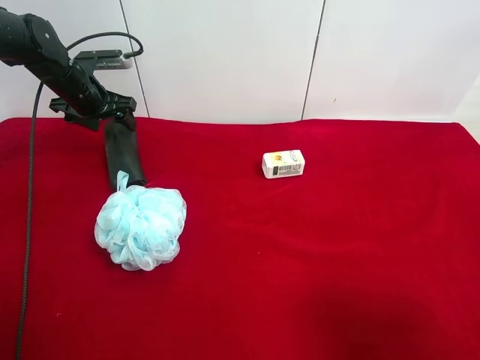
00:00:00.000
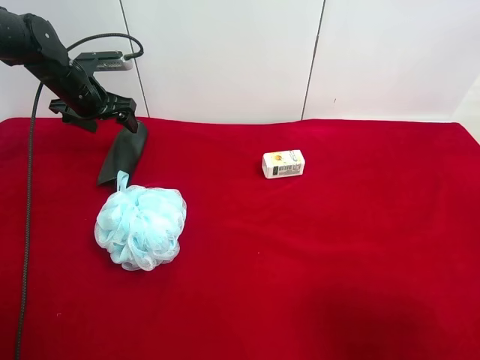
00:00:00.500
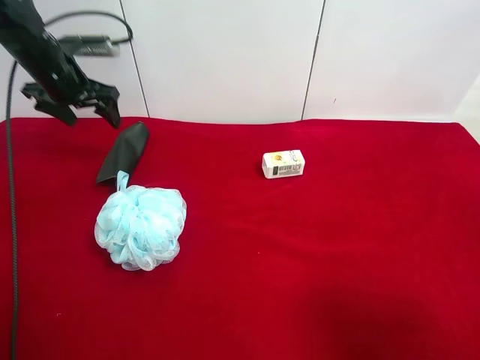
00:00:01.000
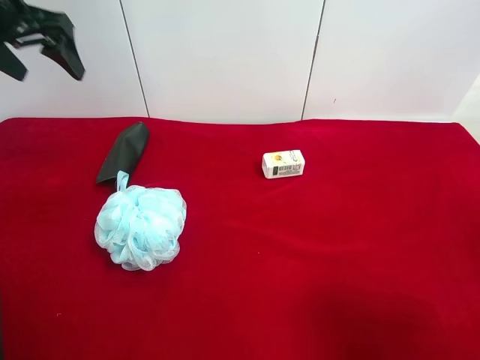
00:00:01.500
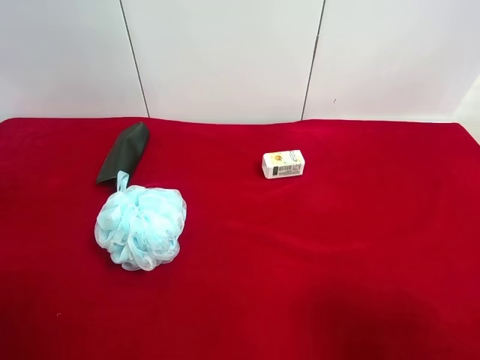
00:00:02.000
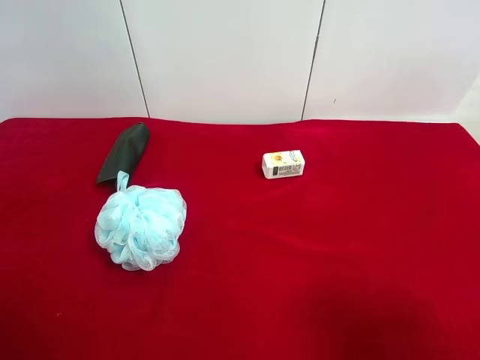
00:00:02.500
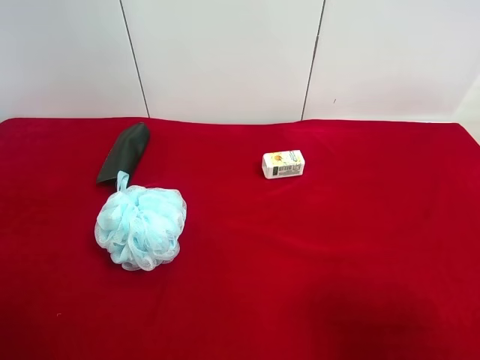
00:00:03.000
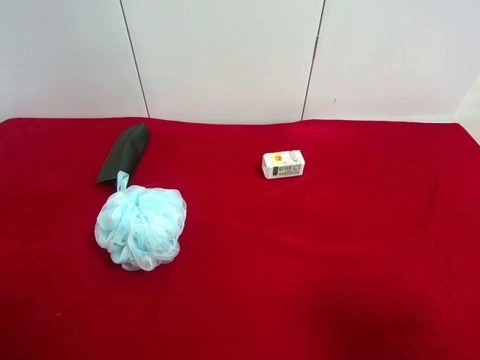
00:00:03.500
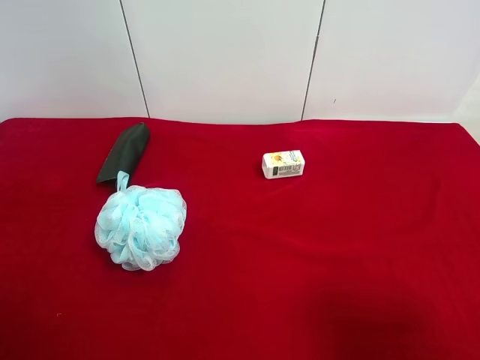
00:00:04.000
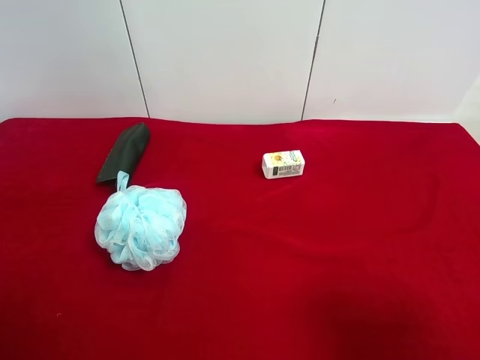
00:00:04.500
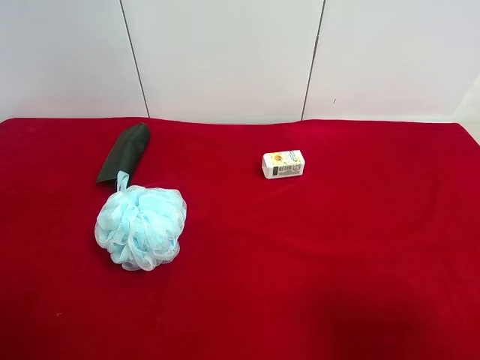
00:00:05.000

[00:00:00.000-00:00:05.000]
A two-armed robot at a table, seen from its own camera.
Task of the whole recording: use the right gripper to pick up the item and transfer it from the right gripper to the left gripper.
00:00:00.000 to 00:00:02.500: The left gripper travels backward and upward by approximately 40 cm.

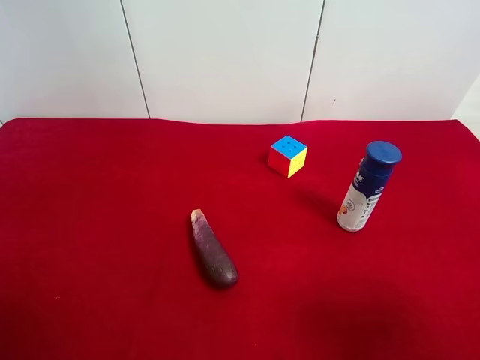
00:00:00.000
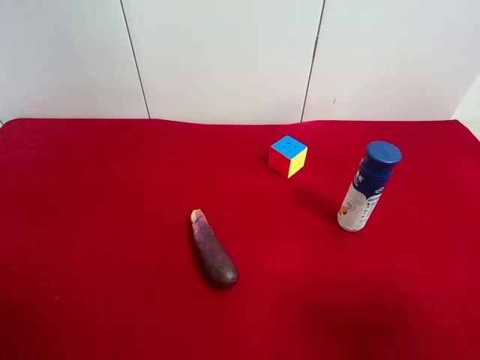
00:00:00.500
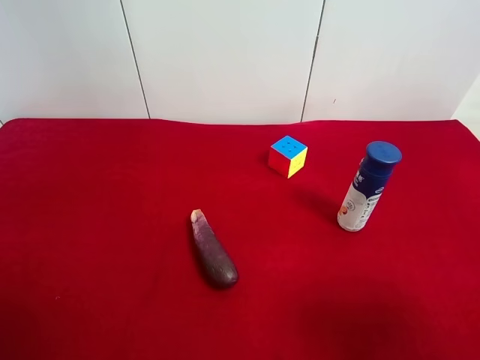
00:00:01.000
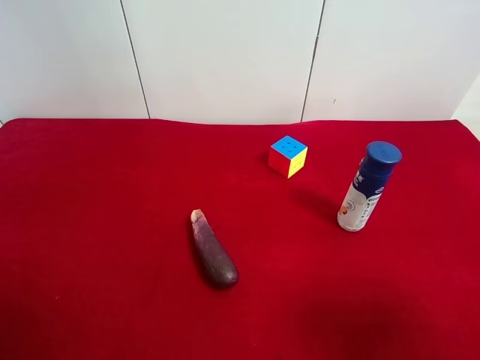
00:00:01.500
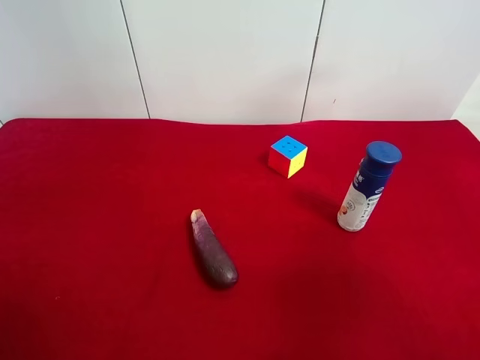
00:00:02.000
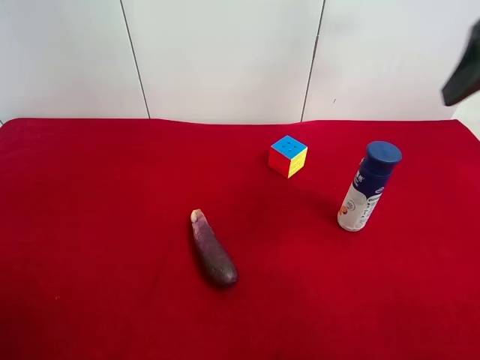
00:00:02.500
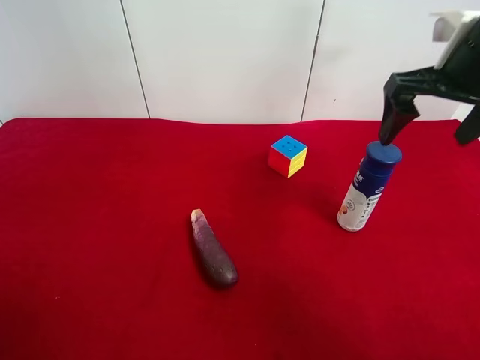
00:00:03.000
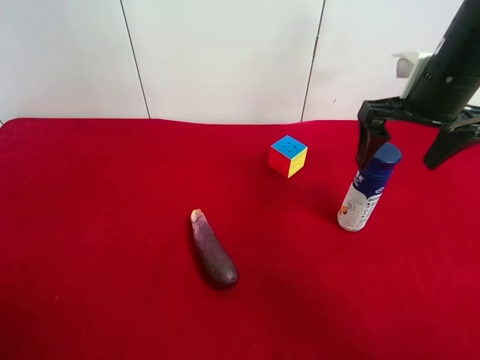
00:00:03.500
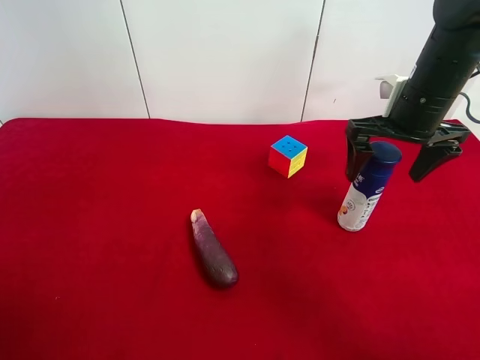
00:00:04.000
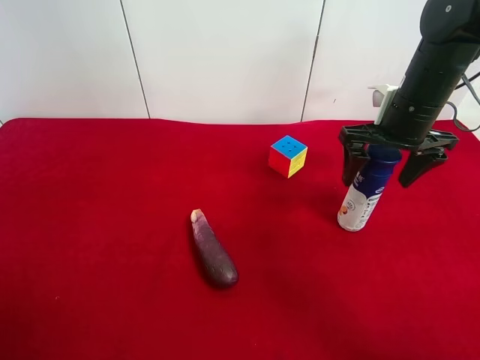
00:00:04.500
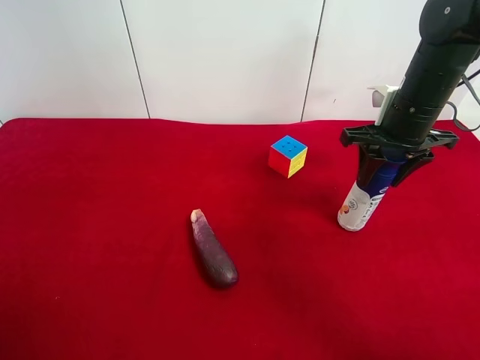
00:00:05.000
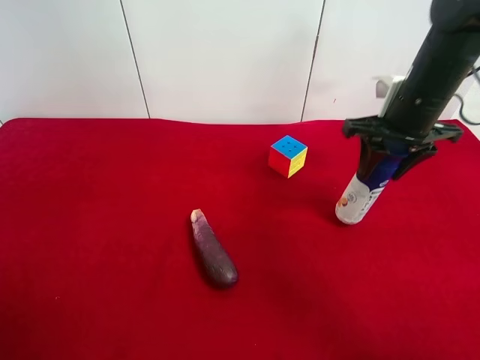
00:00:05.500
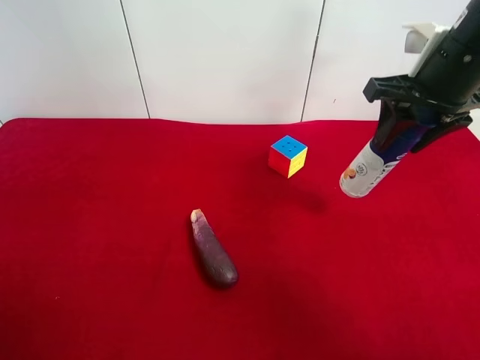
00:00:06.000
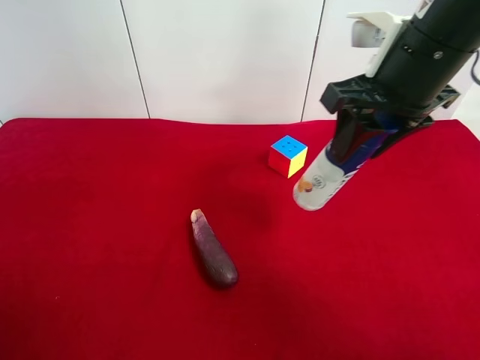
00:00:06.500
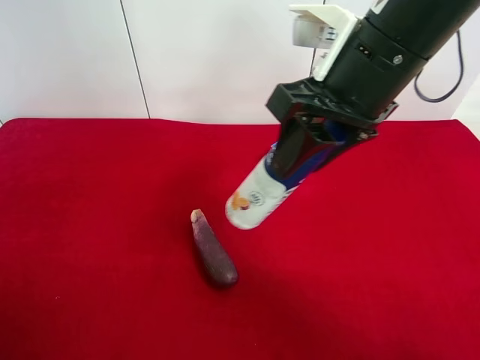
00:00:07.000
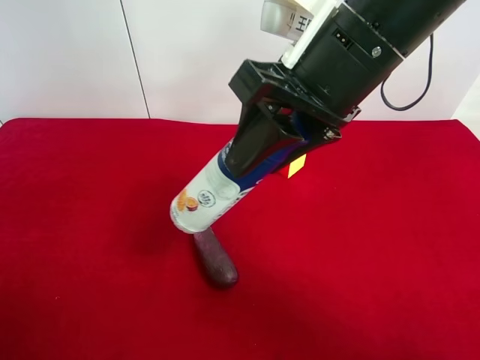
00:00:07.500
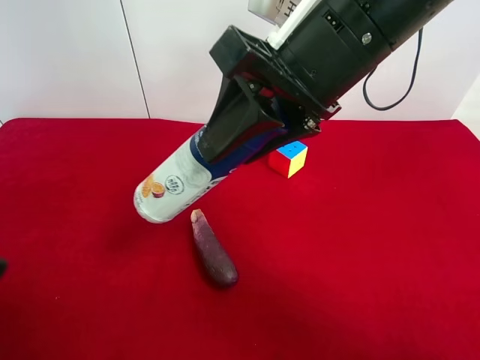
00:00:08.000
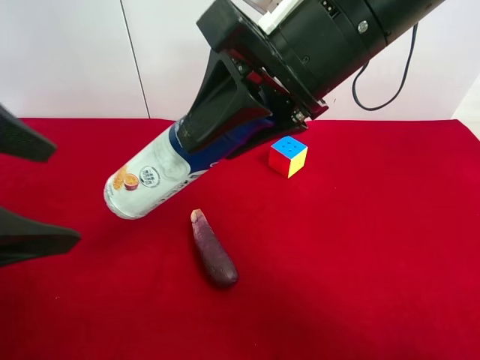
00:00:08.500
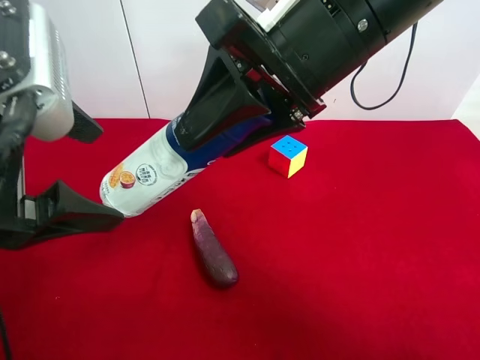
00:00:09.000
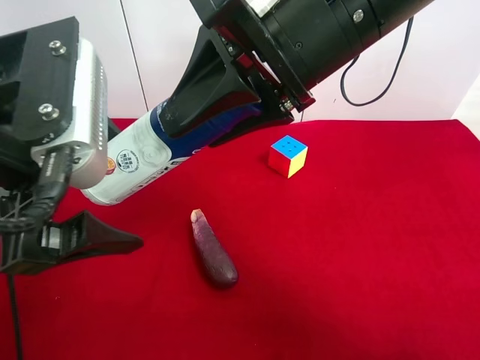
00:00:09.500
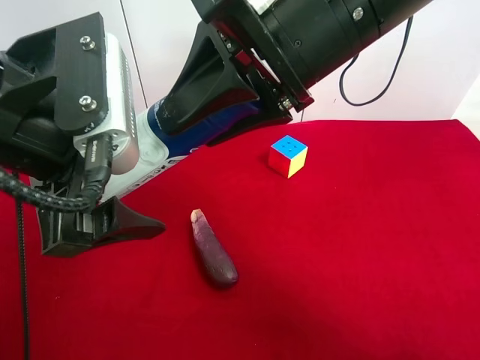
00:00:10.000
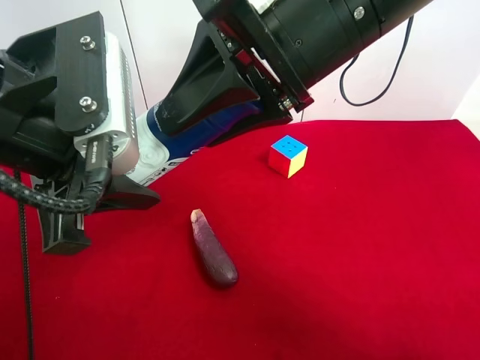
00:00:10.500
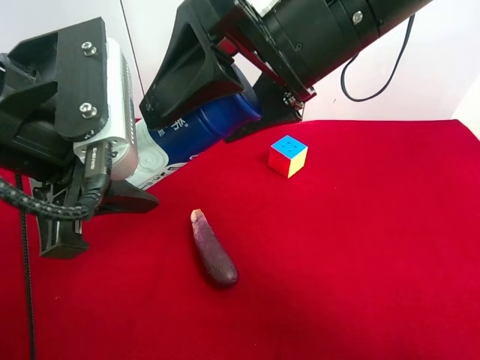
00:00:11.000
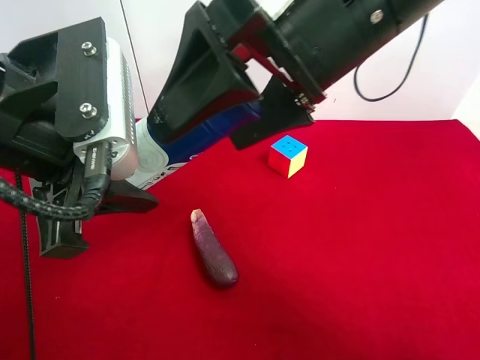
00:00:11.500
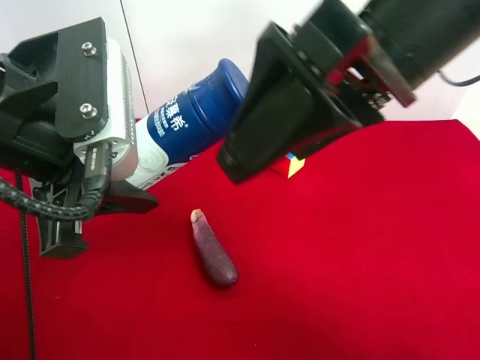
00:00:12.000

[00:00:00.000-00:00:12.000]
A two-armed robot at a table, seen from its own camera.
Task of the whole recording: use the right gripper to pick up the item and transfer it from the right gripper to the left gripper.
Step, 00:00:00.000 to 00:00:04.500: Use the right gripper to grab the yogurt on the right side of the table.
Step, 00:00:05.000 to 00:00:11.000: Pass the yogurt to the left gripper.
00:00:02.000 to 00:00:04.000: The right gripper travels forward and downward by approximately 30 cm.
00:00:04.000 to 00:00:06.000: The right gripper heads upward, covering some 5 cm, and closes its fingers.
00:00:06.000 to 00:00:08.000: The right gripper is displaced to the left and backward by some 15 cm. Meanwhile the left gripper heads forward and to the right, covering roughly 10 cm.
00:00:08.000 to 00:00:10.000: The left gripper goes about 15 cm to the right and forward.
00:00:10.000 to 00:00:12.000: The left gripper closes. Meanwhile the right gripper is displaced backward by some 5 cm, and opens its fingers.

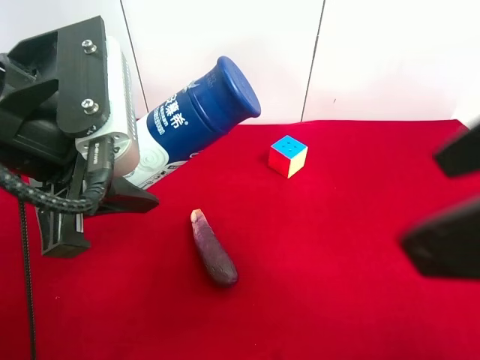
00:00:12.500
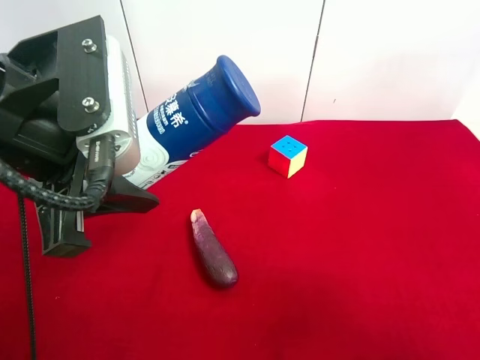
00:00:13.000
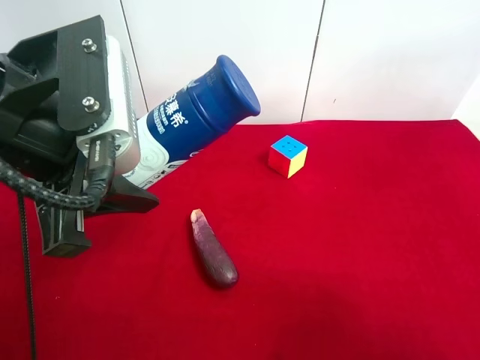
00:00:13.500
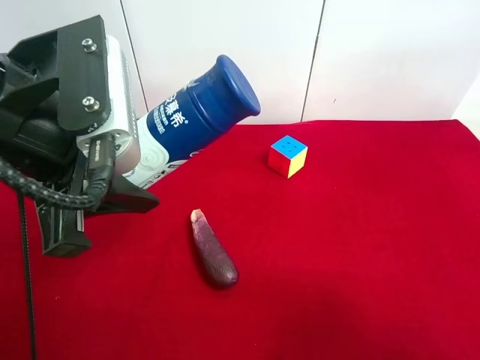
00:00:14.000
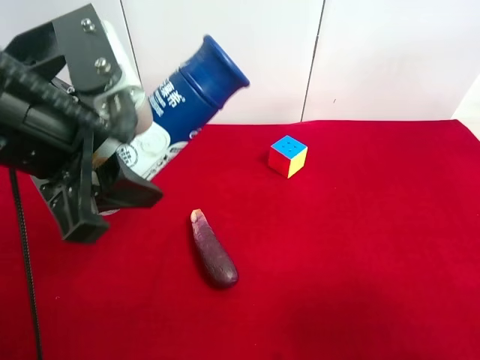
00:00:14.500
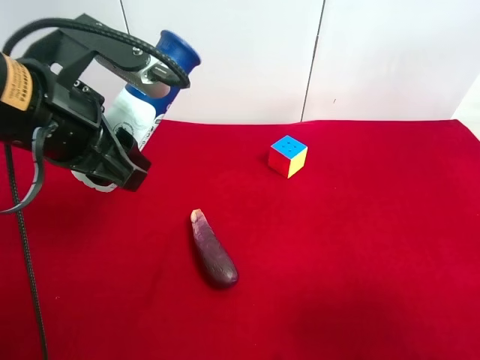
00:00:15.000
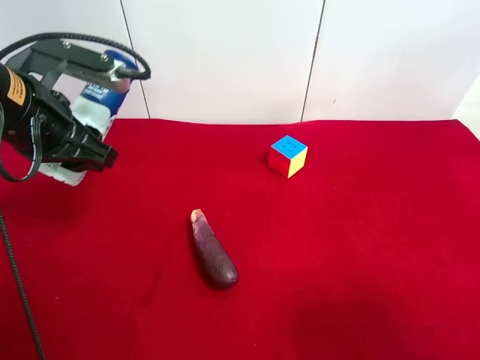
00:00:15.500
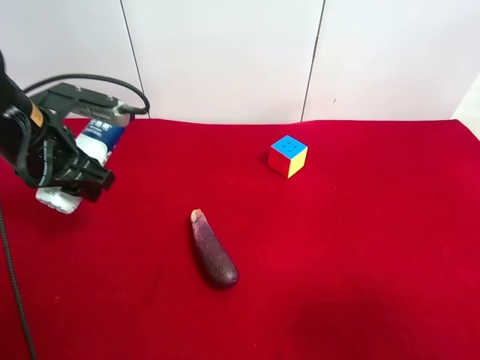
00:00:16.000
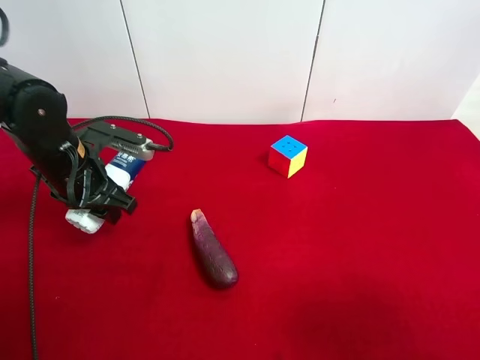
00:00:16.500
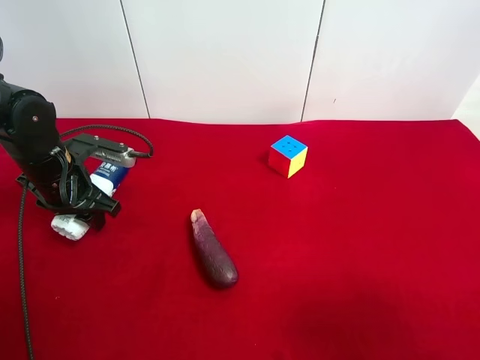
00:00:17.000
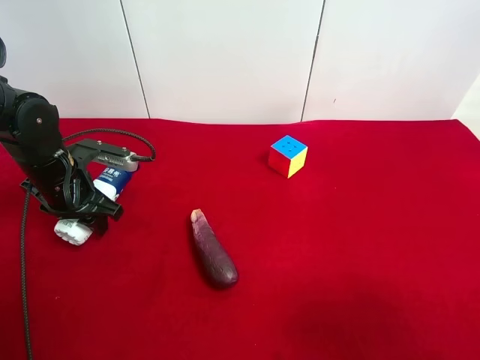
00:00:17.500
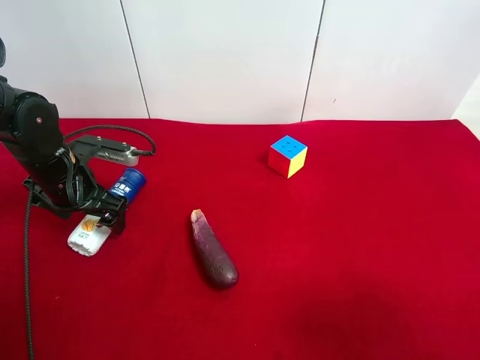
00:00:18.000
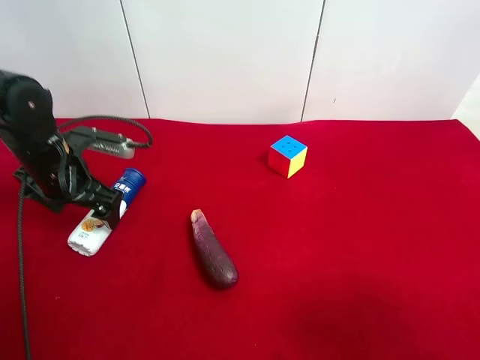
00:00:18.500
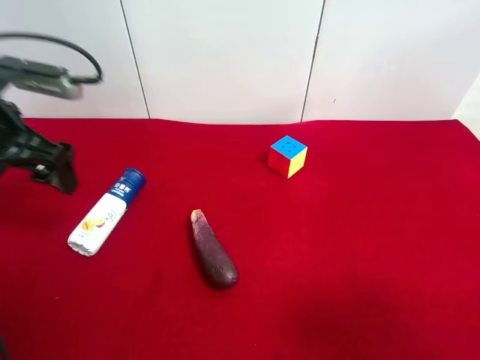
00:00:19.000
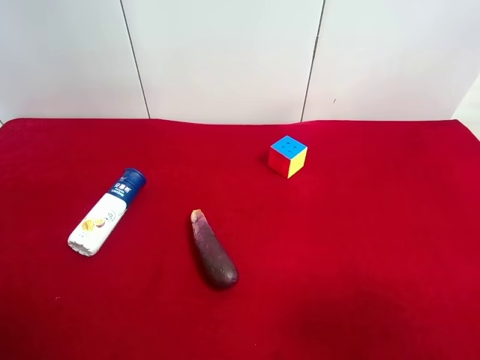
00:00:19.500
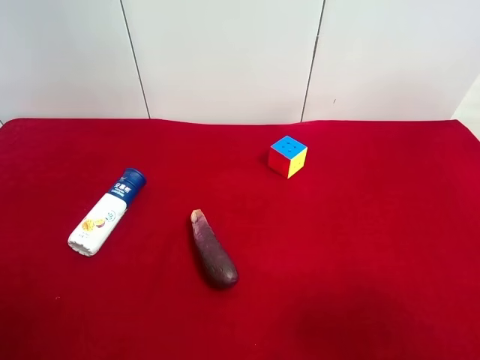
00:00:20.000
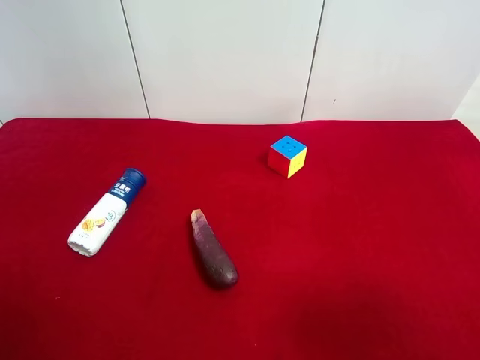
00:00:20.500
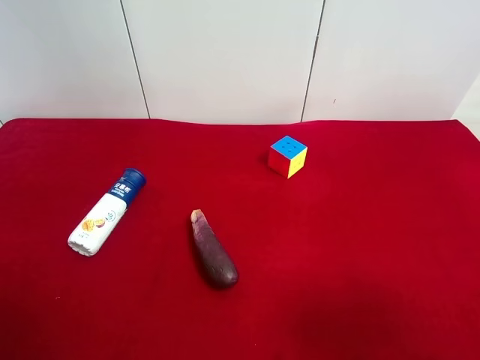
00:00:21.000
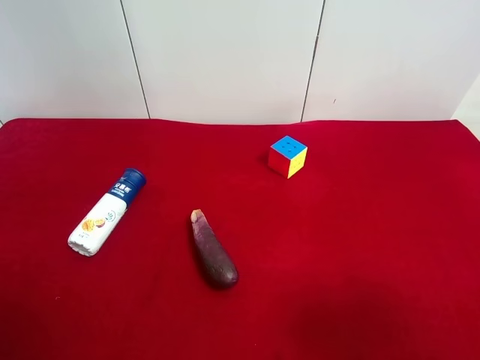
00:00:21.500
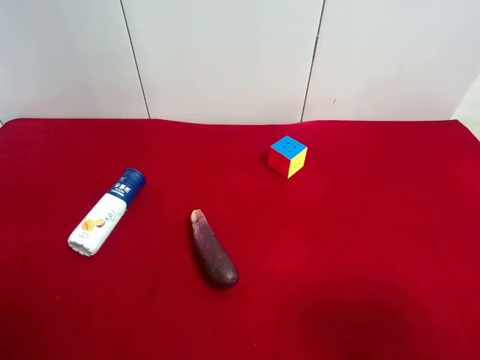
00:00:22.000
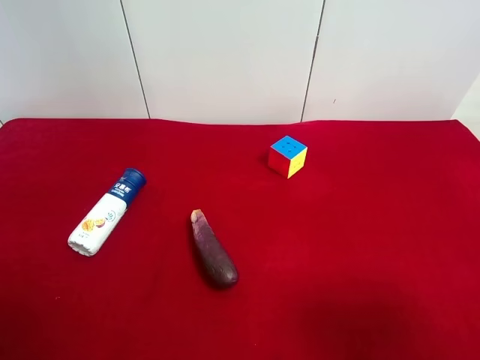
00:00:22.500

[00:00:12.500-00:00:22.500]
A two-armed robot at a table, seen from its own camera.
Task of the whole recording: use the right gripper to pick up the item and transfer it from the right gripper to the left gripper.
Step, 00:00:12.500 to 00:00:17.500: The left gripper places yogurt on the left side of the table.
00:00:12.500 to 00:00:14.500: The right gripper is displaced downward, to the right and backward by some 15 cm.
00:00:14.500 to 00:00:16.500: The left gripper is displaced downward, forward and to the left by approximately 20 cm.
00:00:16.500 to 00:00:18.500: The left gripper opens its fingers.
00:00:18.500 to 00:00:20.500: The left gripper moves backward and upward, some 35 cm.
